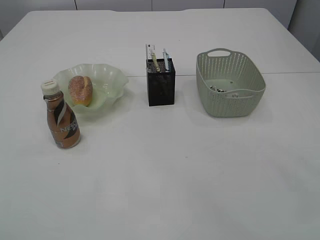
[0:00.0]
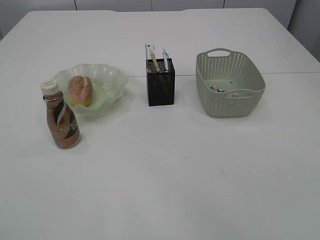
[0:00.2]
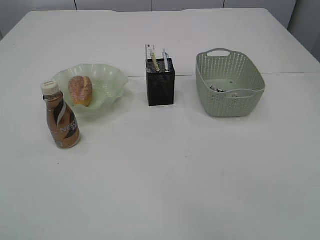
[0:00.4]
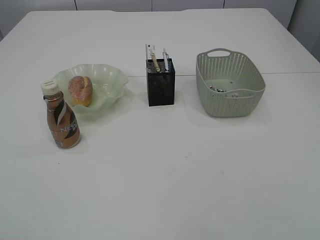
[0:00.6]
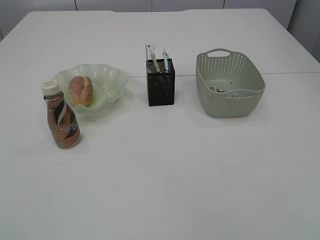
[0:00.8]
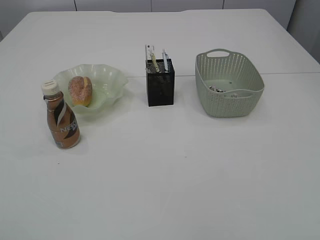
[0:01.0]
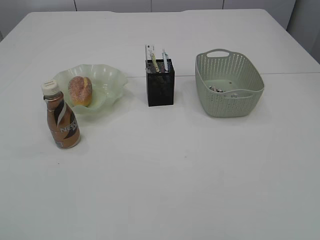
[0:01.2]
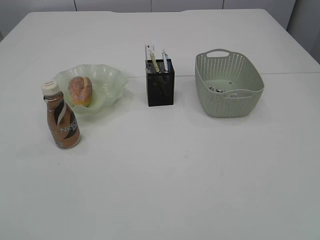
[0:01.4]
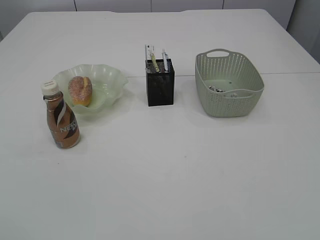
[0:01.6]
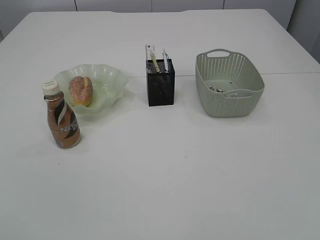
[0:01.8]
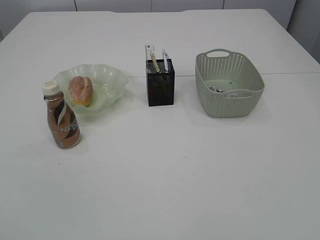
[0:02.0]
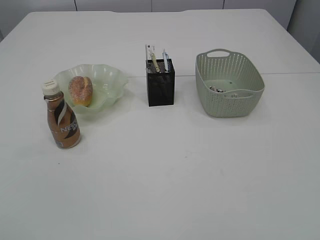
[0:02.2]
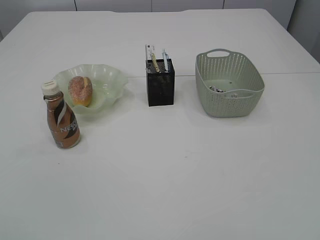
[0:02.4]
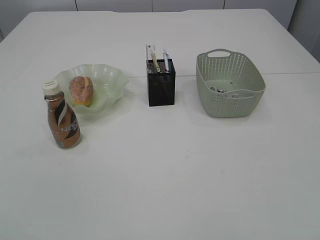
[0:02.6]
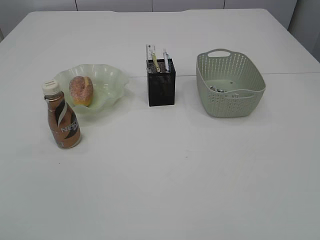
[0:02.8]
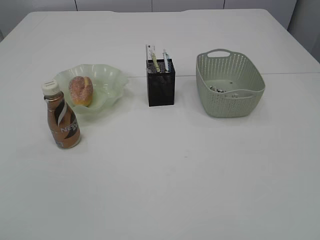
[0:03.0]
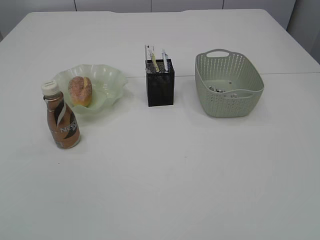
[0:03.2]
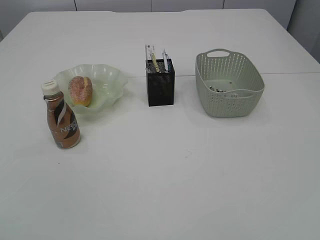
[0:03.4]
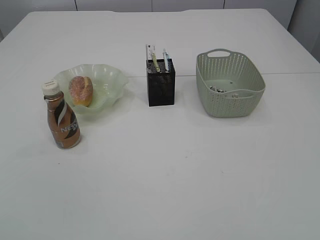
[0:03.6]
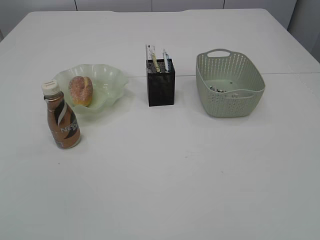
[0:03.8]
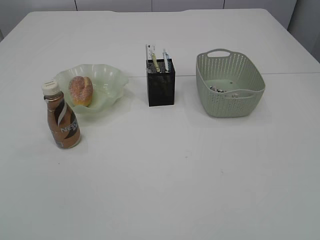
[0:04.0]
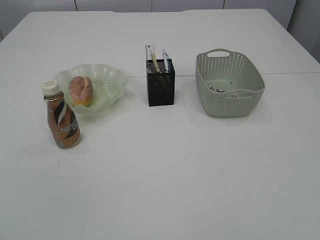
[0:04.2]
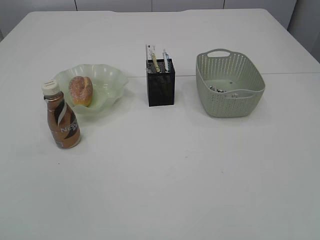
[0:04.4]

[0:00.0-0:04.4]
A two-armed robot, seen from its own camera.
0:00.0 to 0:01.4: The left gripper shifts approximately 15 cm backward. The right gripper is displaced backward and to the right by about 40 cm.

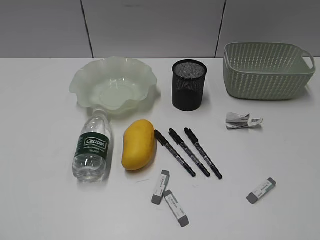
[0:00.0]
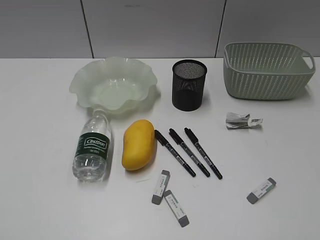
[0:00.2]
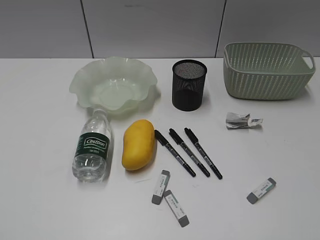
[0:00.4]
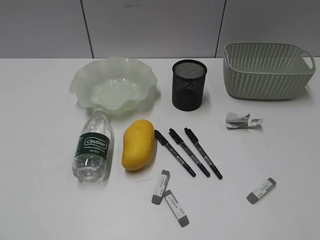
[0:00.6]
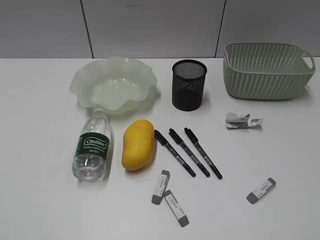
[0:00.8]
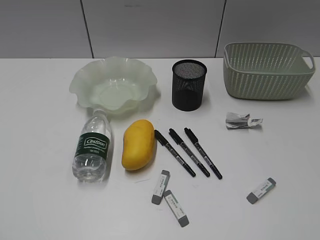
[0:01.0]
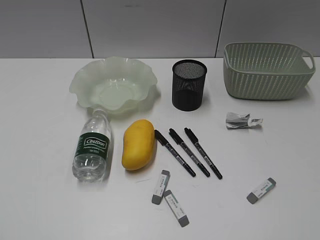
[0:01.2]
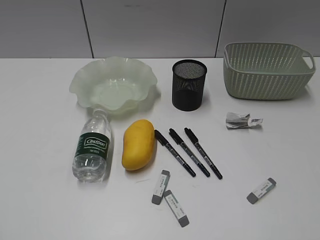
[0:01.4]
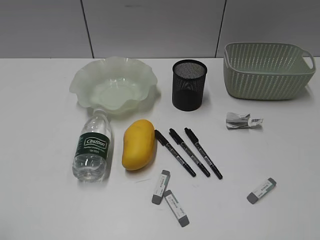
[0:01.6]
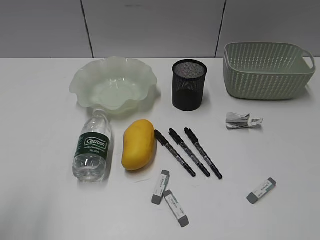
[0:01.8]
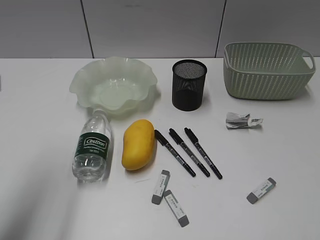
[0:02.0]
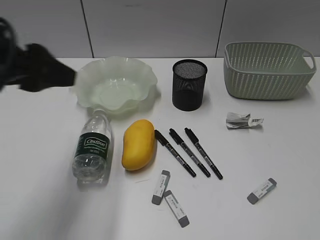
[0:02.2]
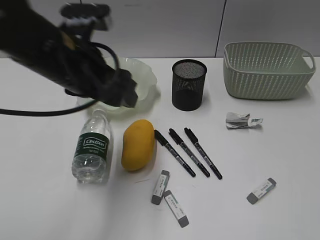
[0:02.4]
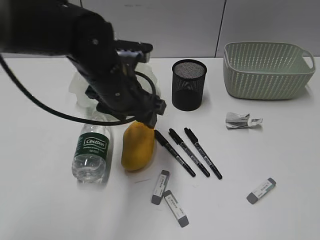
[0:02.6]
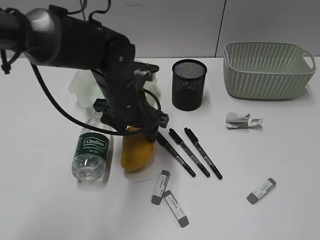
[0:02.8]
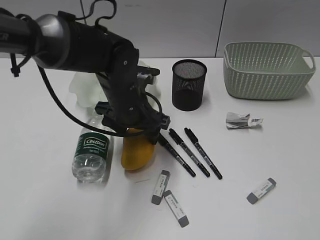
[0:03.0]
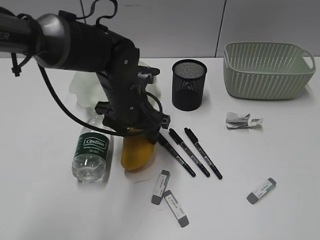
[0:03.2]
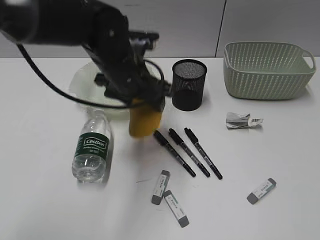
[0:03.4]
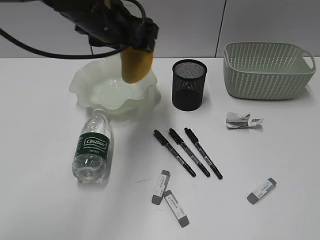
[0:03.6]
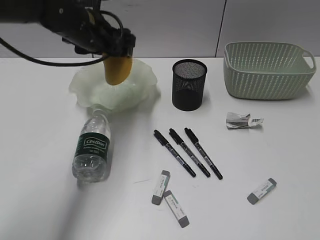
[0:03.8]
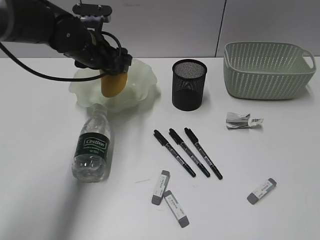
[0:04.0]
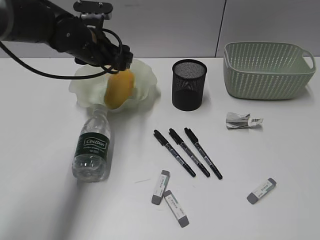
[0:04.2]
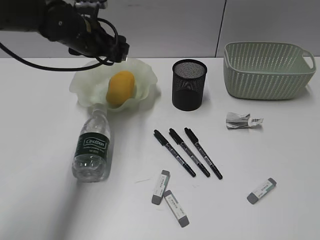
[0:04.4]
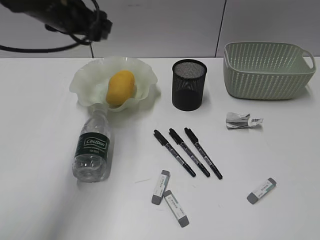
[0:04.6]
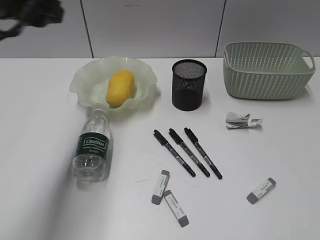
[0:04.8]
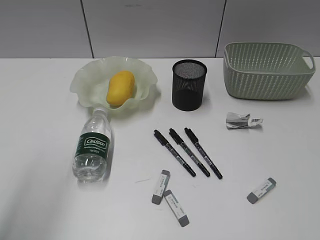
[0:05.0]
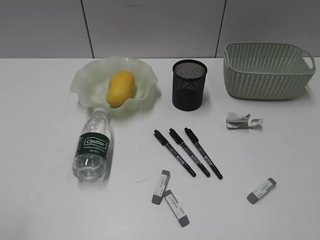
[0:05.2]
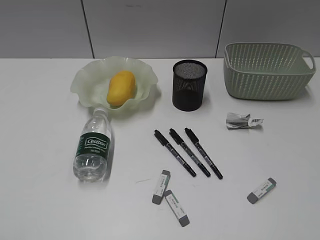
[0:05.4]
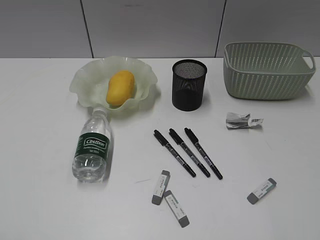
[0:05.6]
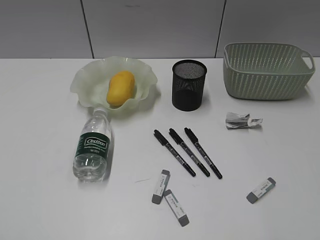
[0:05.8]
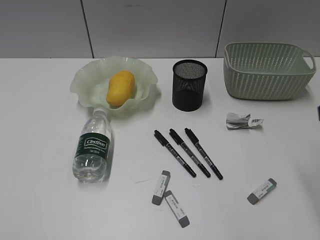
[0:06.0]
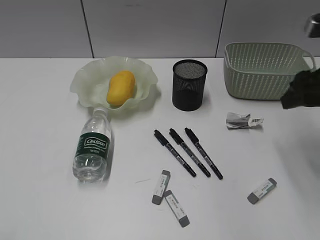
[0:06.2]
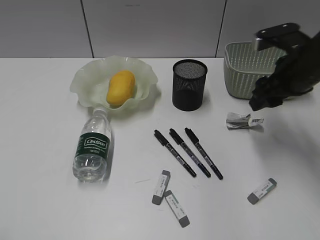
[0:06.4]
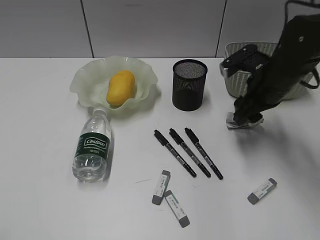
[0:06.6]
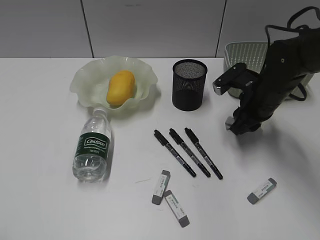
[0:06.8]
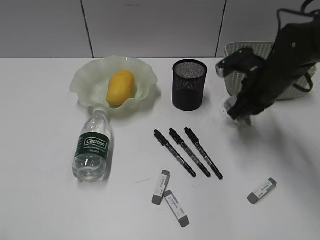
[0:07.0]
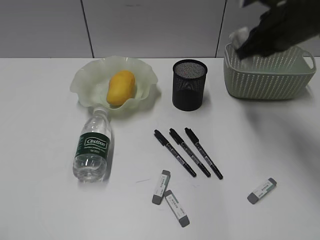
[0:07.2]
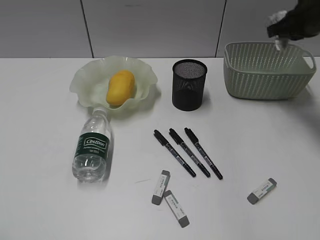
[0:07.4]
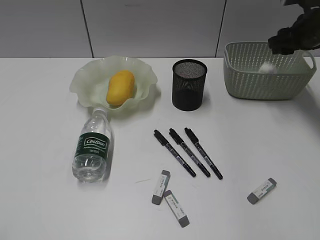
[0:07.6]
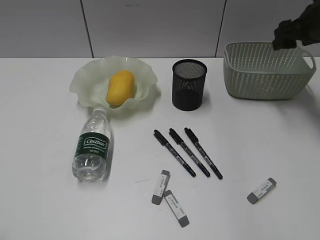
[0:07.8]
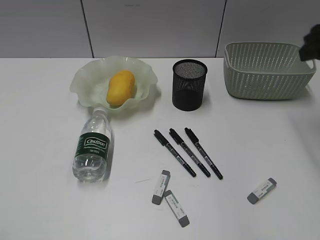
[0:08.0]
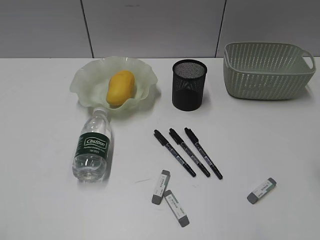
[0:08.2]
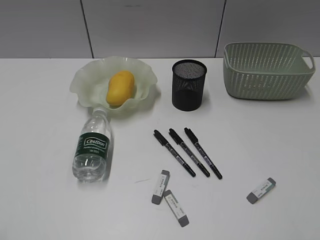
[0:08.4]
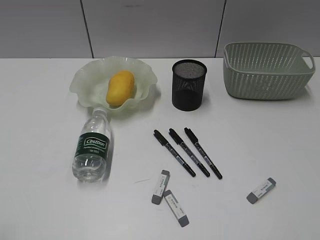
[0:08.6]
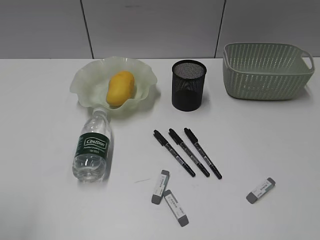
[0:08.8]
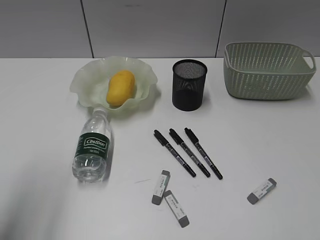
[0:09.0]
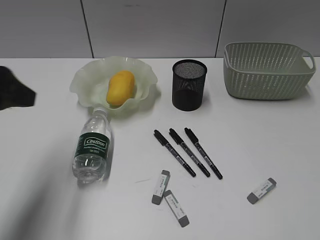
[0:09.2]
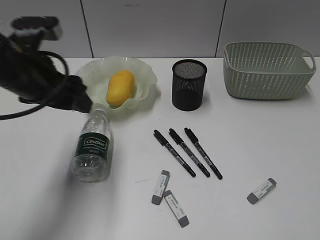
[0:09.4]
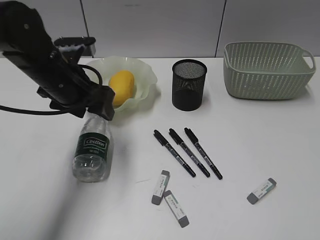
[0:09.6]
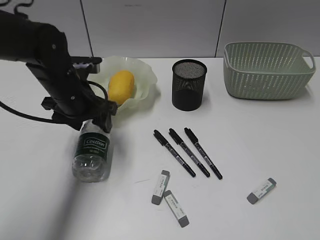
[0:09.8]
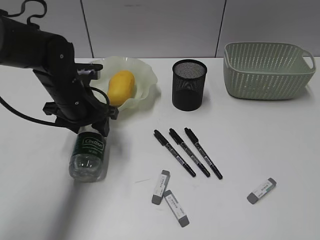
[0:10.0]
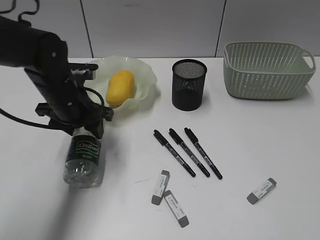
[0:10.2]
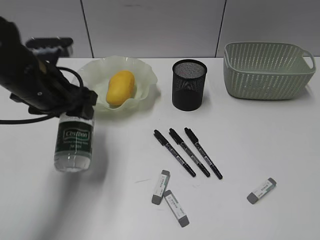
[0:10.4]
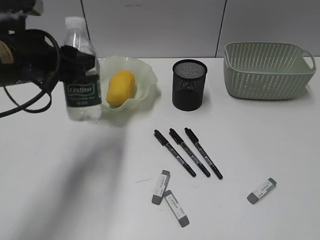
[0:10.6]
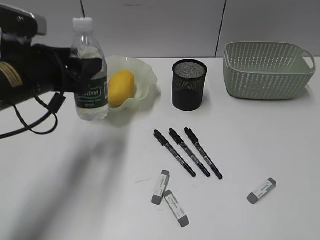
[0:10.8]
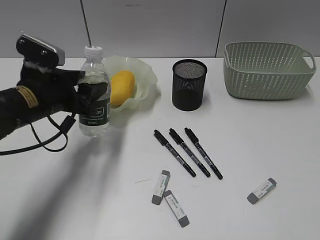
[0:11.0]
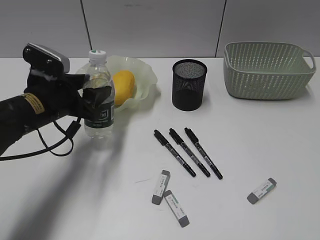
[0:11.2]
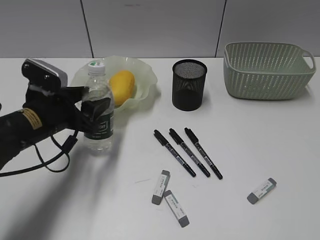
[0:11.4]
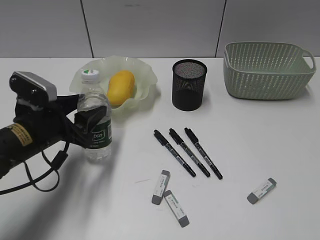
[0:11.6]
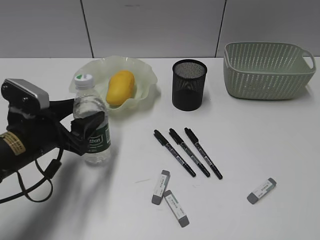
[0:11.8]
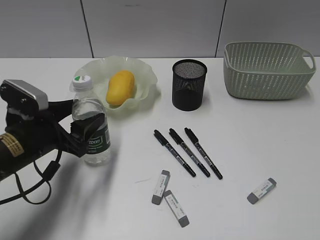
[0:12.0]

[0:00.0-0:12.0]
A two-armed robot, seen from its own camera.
Step, 0:01.4 to 0:03.0: Grasp the mango with left gripper.
Step, 0:03.2 to 0:04.2: Place the mango in the plate with left gripper.
Step, 0:04.4 to 0:06.8: Grasp the waste paper with right gripper.
Step, 0:07.0 to 0:07.6: Place the waste paper in the basket with right gripper.
Step, 0:07.8 to 0:10.0: Grasp the bottle with left gripper.
0:01.6 to 0:03.0: The left gripper is displaced forward, to the right and downward by about 40 cm, and opens up.
0:03.0 to 0:04.4: The left gripper moves forward, to the left and upward, roughly 15 cm.
0:04.4 to 0:06.0: The left gripper travels backward and to the left by roughly 50 cm; the right gripper travels forward by approximately 20 cm.
0:06.0 to 0:07.6: The right gripper goes roughly 25 cm forward, and closes, then opens again.
0:07.6 to 0:09.0: The left gripper is displaced forward by some 15 cm. The right gripper travels backward by roughly 50 cm.
0:09.0 to 0:10.4: The left gripper moves forward, to the right and downward, approximately 20 cm.
0:10.4 to 0:12.0: The left gripper shifts roughly 10 cm downward.

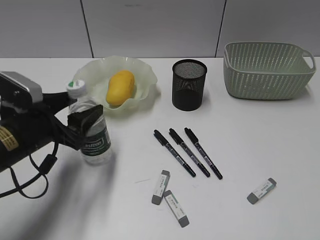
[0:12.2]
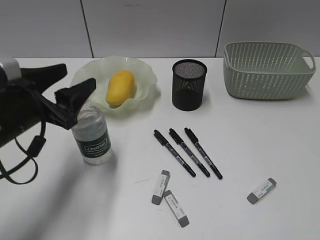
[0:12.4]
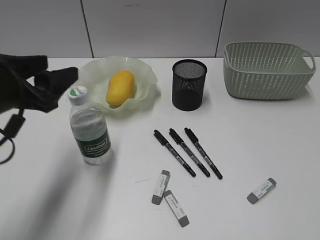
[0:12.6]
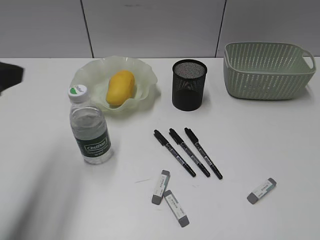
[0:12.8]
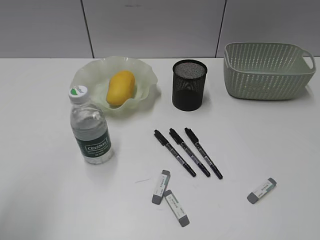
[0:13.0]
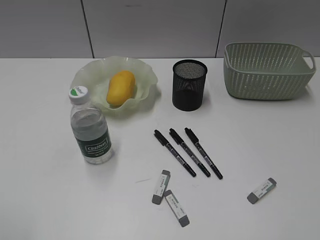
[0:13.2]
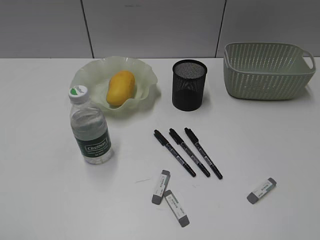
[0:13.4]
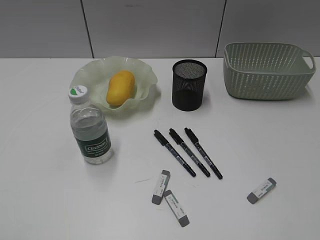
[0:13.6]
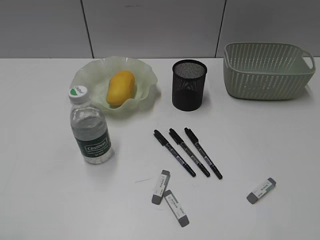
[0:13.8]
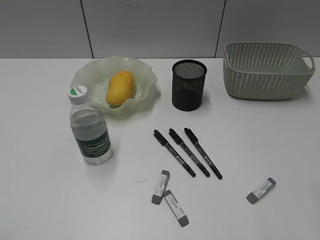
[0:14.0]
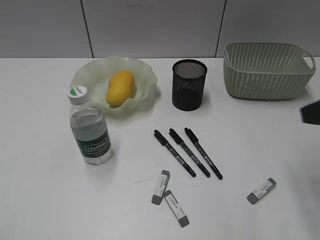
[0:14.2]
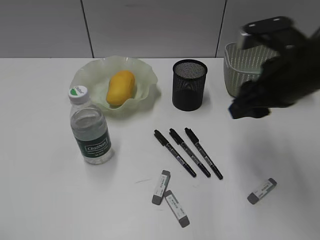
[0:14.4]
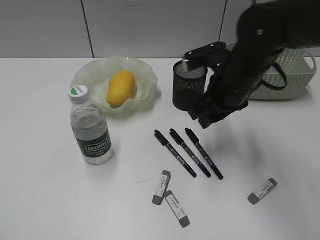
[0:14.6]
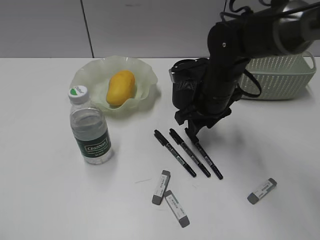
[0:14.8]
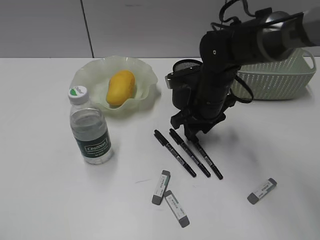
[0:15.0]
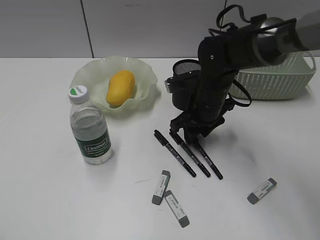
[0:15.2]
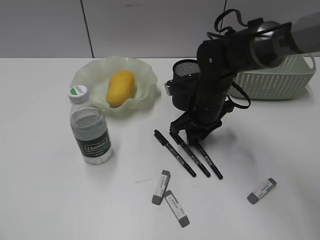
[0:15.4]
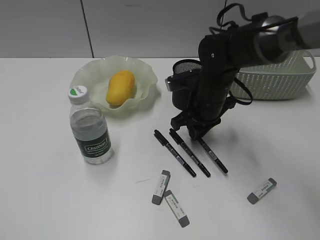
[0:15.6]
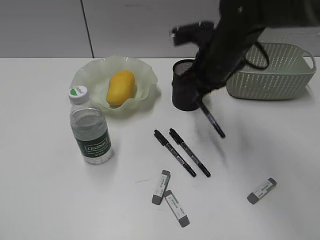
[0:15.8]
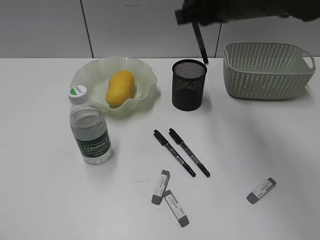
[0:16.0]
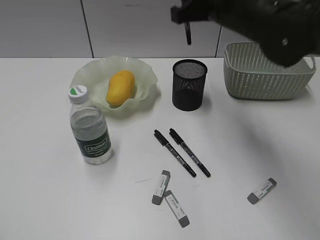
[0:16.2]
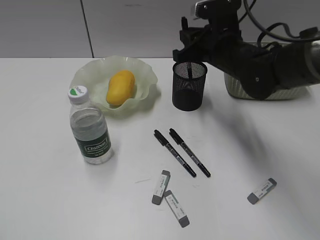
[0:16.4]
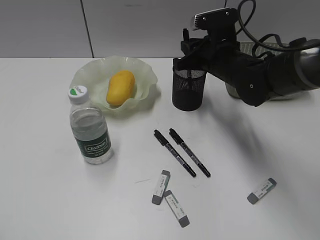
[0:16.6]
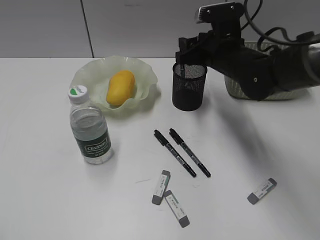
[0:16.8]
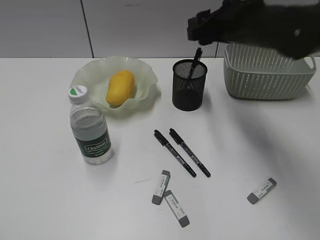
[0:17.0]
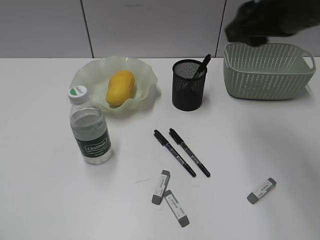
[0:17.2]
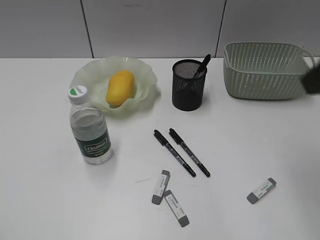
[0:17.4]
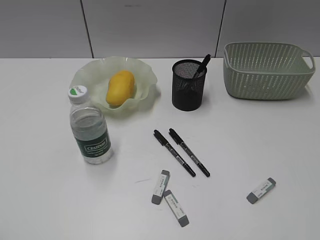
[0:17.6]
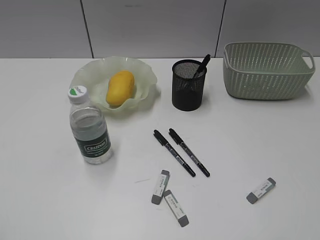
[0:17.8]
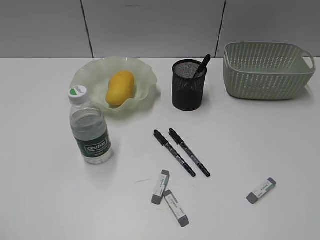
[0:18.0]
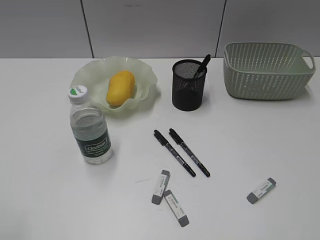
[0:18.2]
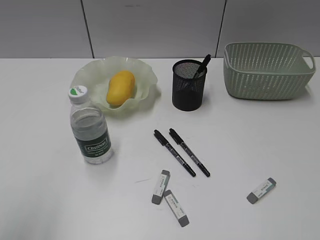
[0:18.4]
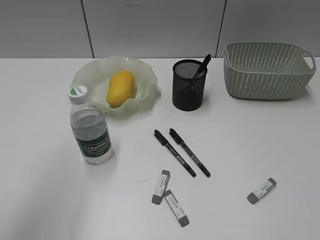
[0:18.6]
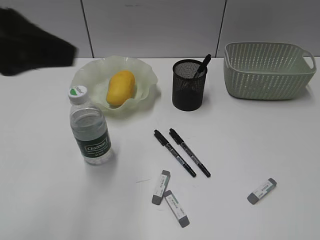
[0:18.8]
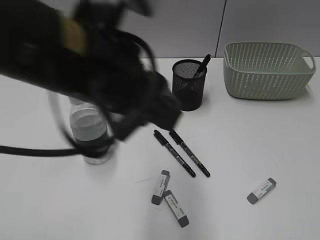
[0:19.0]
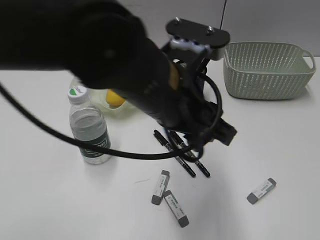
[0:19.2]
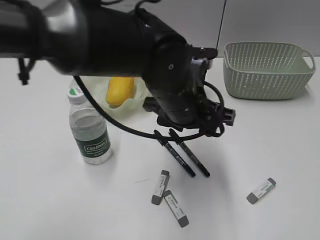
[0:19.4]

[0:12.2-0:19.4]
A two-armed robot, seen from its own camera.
Step, 0:12.4 to 0:15.4: Grasp the black pen with right gripper.
Step, 0:15.6 to 0:17.0: Place the black pen in pen holder with right gripper.
0:12.2 to 0:13.6: The left gripper travels backward, upward and to the left by roughly 30 cm.
0:13.6 to 0:15.0: The right gripper shifts approximately 50 cm forward, to the left and downward.
0:15.0 to 0:16.6: The right gripper travels upward and back again, roughly 20 cm each way, and closes its fingers.
0:16.6 to 0:18.0: The right gripper shifts about 40 cm backward and to the right, and opens and closes again.
0:18.0 to 0:19.4: The left gripper heads to the right and forward, covering roughly 40 cm, and opens up.
